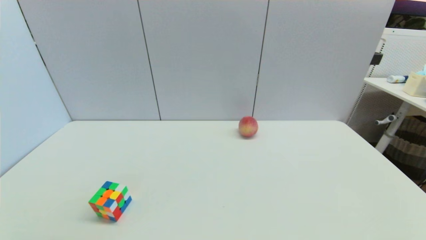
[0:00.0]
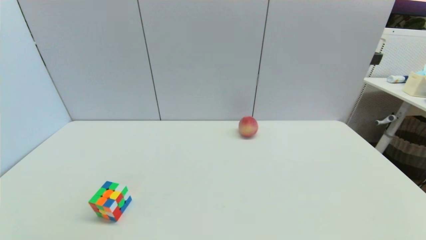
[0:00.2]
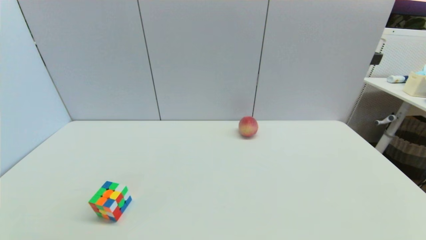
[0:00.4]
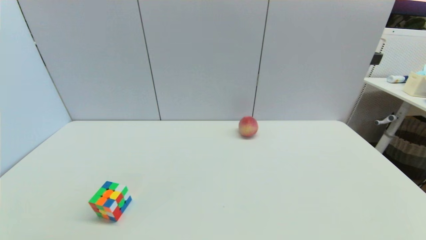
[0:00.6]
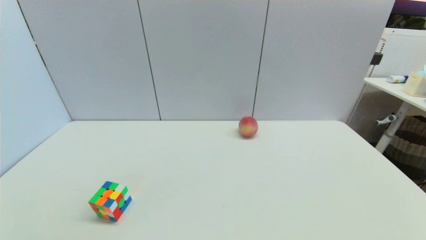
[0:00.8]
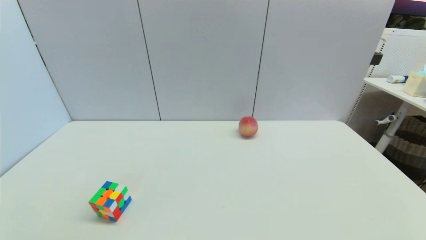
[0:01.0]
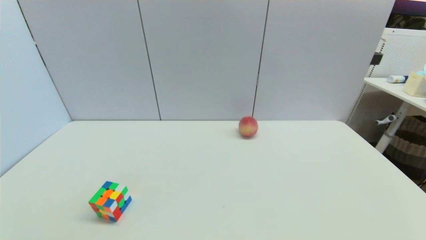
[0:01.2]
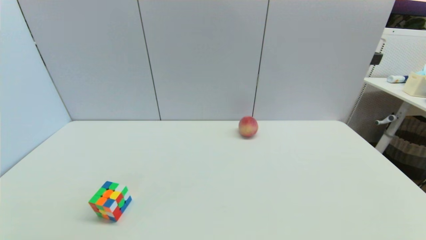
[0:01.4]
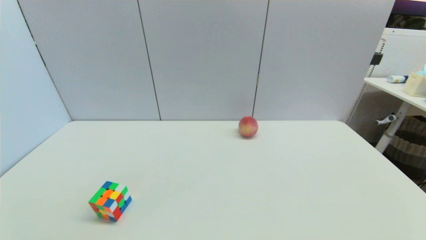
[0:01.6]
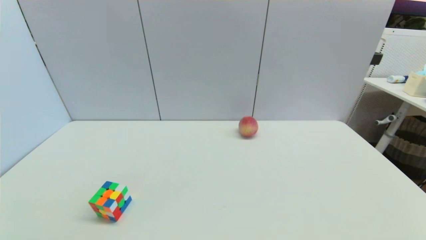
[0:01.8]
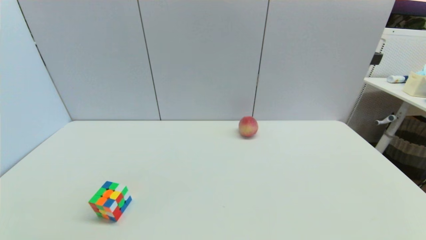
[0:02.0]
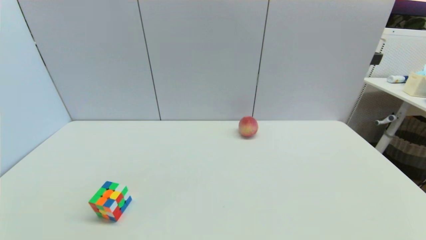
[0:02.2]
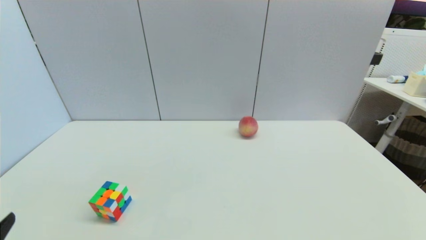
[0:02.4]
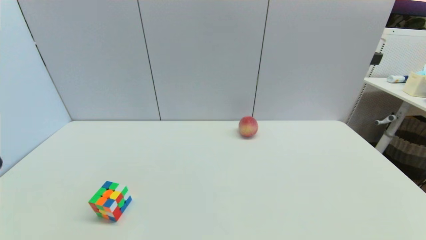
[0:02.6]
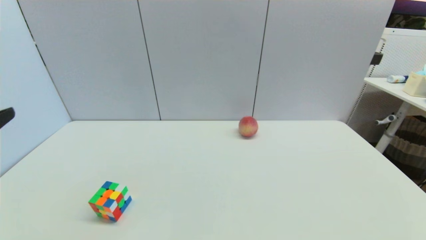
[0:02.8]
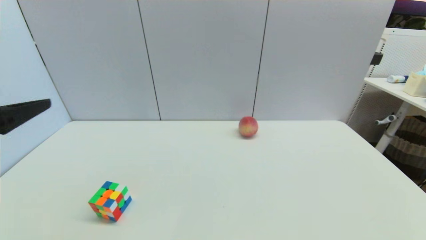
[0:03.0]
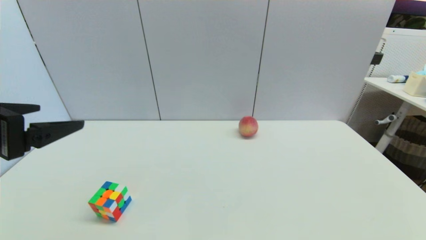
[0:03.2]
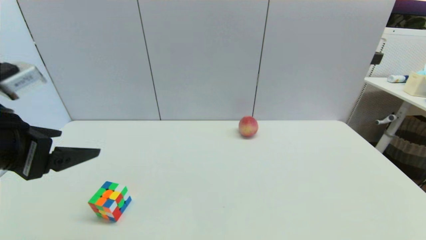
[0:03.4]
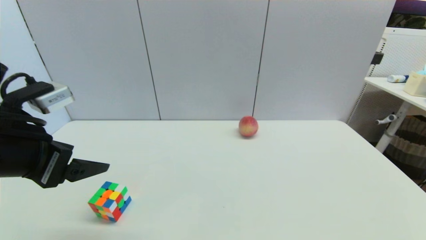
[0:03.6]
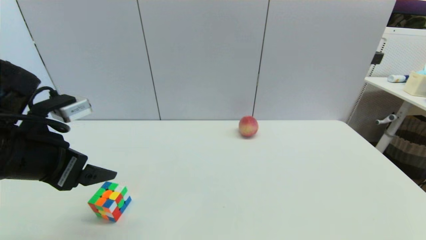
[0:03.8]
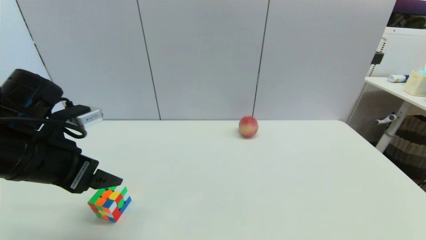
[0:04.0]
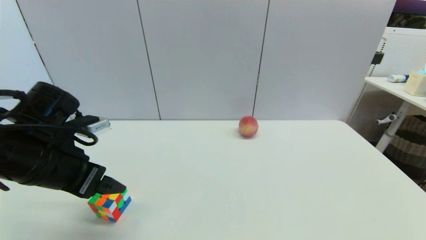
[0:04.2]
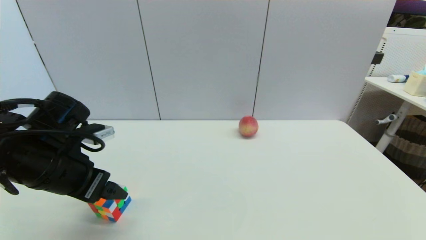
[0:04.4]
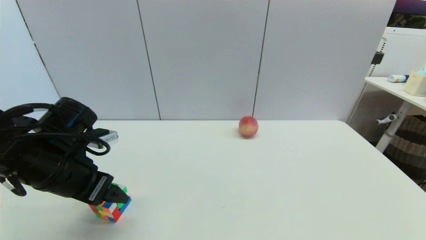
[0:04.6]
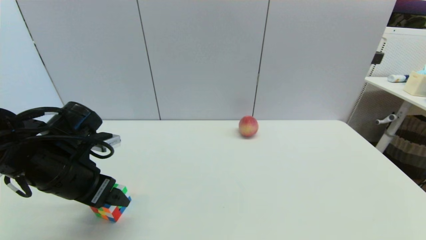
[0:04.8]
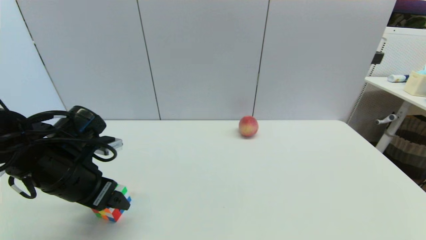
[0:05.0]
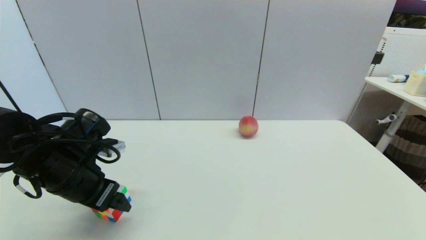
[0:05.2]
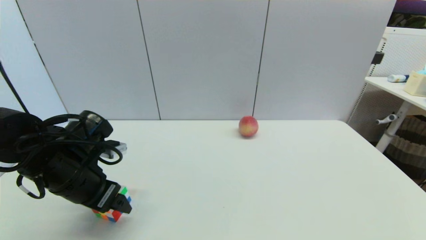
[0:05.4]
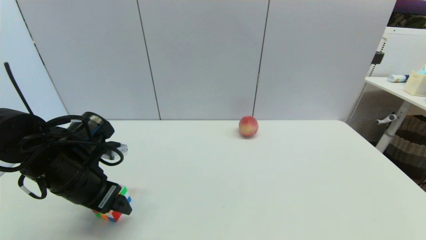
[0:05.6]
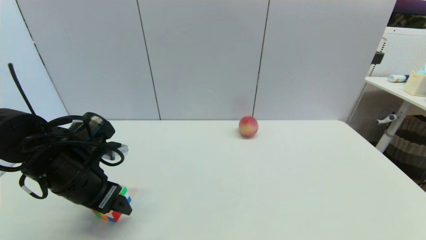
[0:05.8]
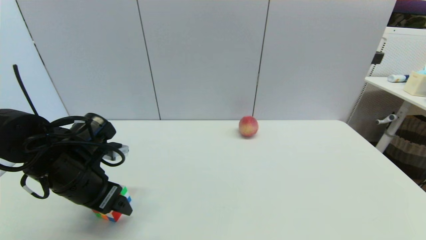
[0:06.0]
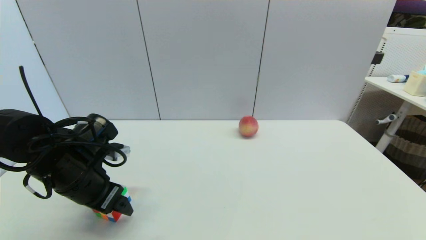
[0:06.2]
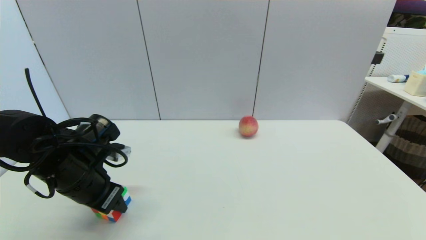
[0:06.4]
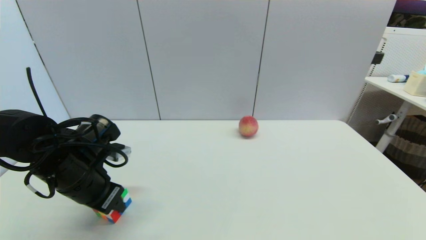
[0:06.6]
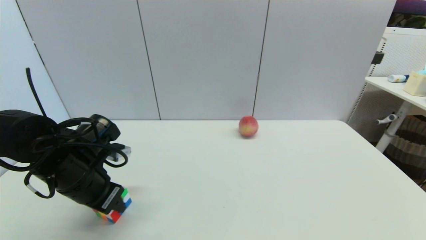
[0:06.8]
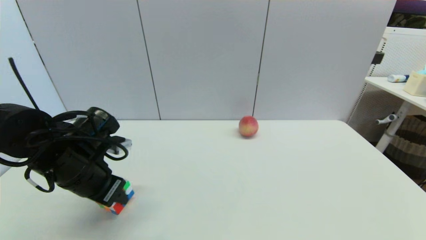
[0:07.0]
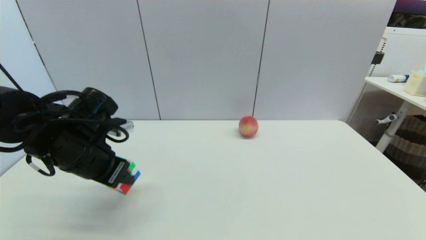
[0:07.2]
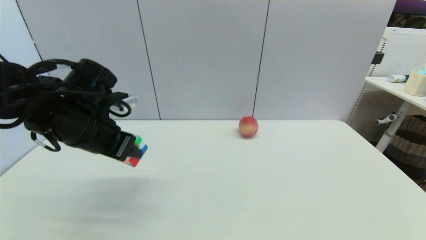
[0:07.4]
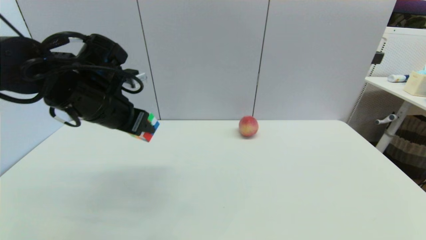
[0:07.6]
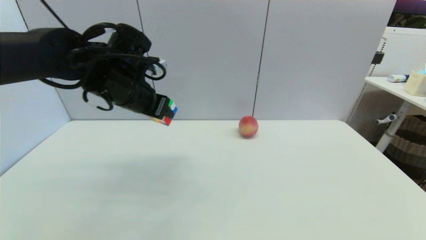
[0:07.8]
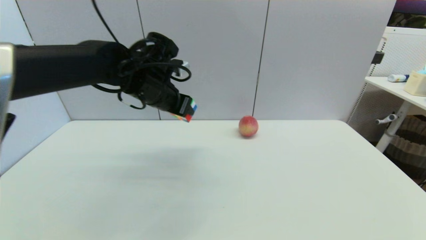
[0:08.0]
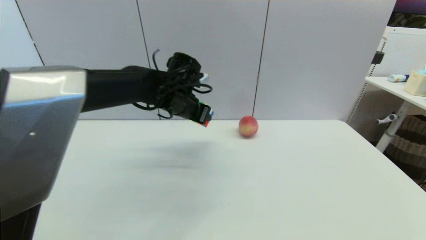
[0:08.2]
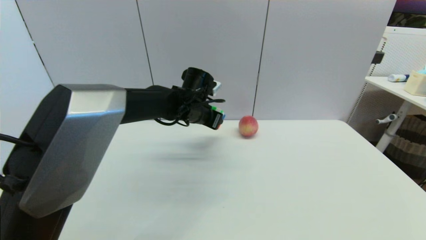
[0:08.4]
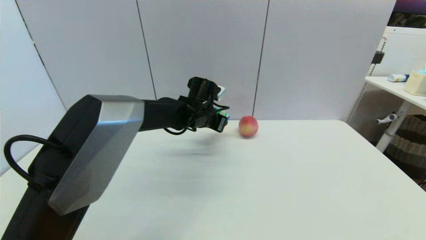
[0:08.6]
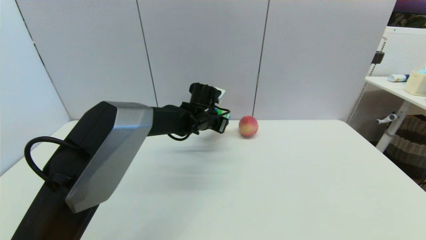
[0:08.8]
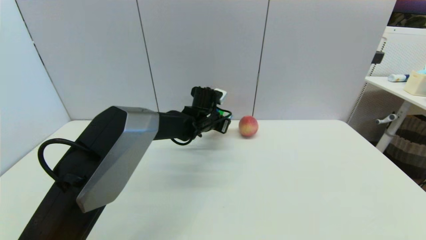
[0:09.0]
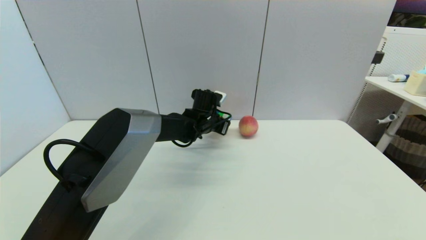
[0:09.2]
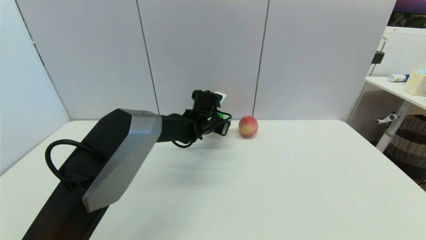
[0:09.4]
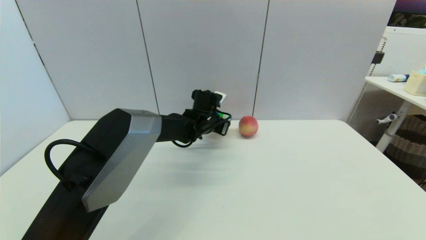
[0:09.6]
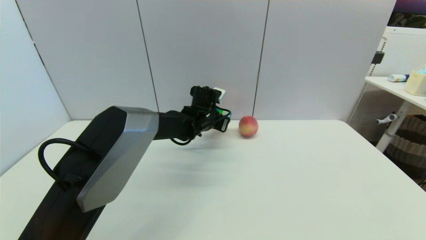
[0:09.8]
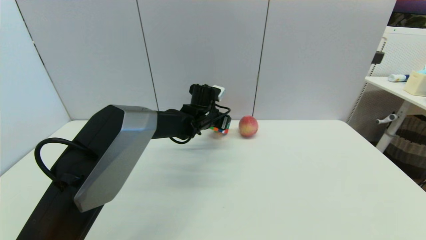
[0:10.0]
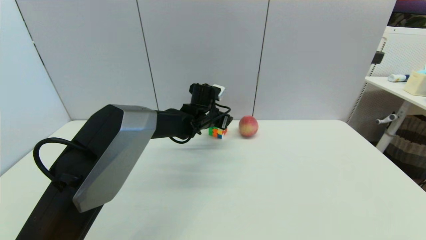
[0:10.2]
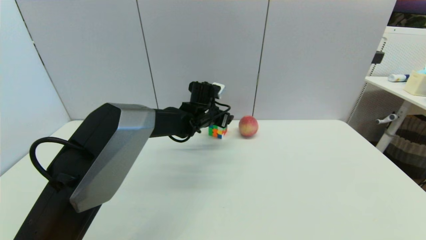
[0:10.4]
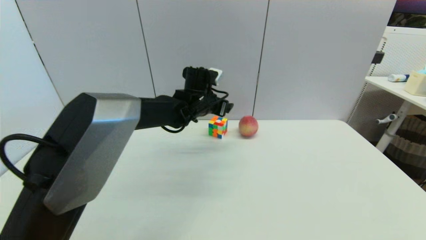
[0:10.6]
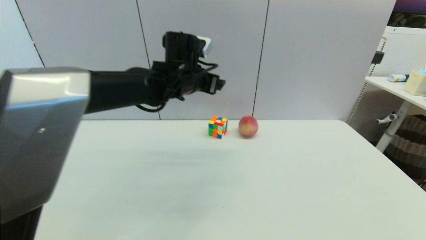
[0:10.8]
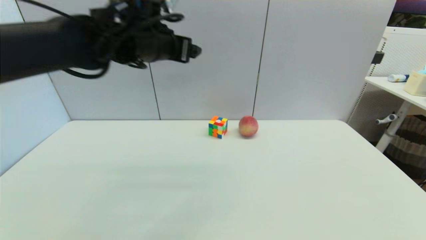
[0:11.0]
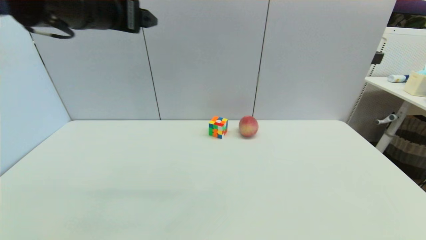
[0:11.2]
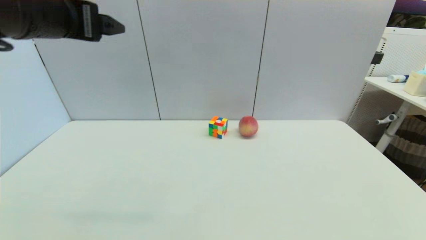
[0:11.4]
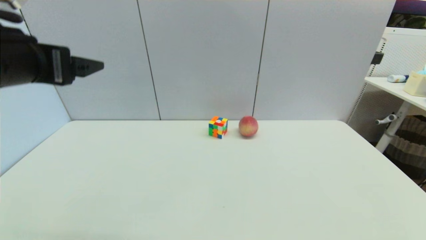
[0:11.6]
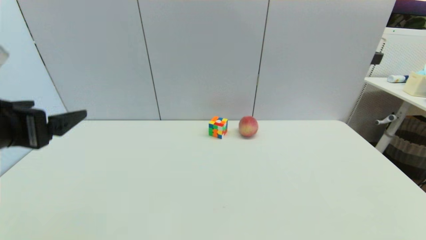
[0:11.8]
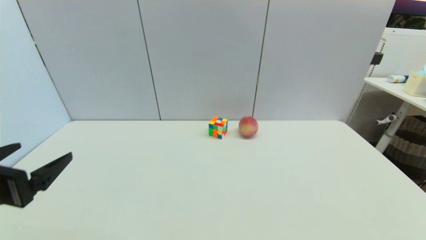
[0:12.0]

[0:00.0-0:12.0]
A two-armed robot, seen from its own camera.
Step, 0:02.4 to 0:06.6: Grasp the magic cube with left gripper.
Step, 0:06.8 to 0:10.6: Place the magic cube on the table with left gripper.
0:01.6 to 0:03.0: The left gripper heads upward and forward, covering approximately 25 cm.
0:03.0 to 0:04.4: The left gripper travels downward and forward by approximately 15 cm.
0:04.4 to 0:06.0: The grippers move only a little.
0:06.0 to 0:07.6: The left gripper goes approximately 10 cm upward and forward, and closes its fingers.
0:07.6 to 0:09.0: The left gripper goes about 25 cm to the right, forward and downward.
0:09.0 to 0:10.4: The left gripper opens up.
0:10.4 to 0:12.0: The left gripper goes roughly 40 cm backward and to the left, and opens.

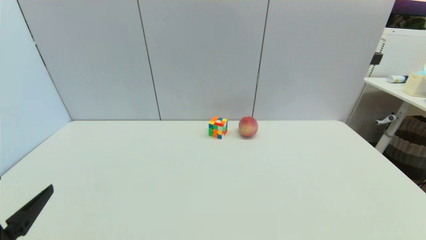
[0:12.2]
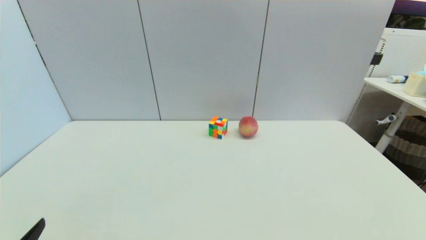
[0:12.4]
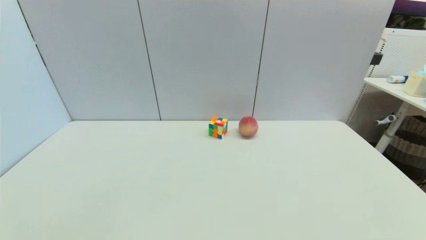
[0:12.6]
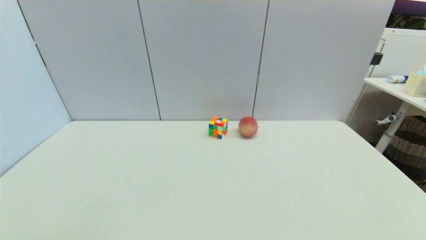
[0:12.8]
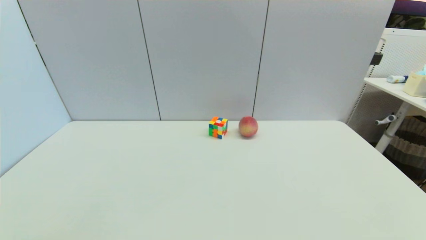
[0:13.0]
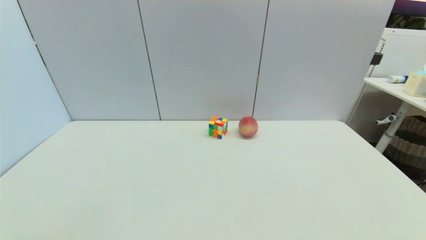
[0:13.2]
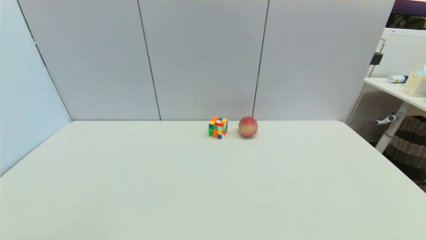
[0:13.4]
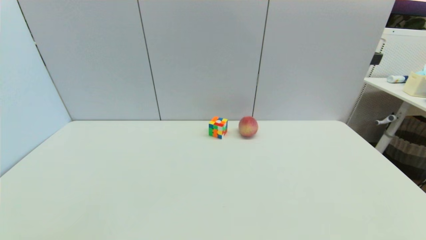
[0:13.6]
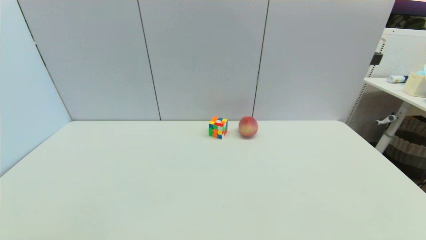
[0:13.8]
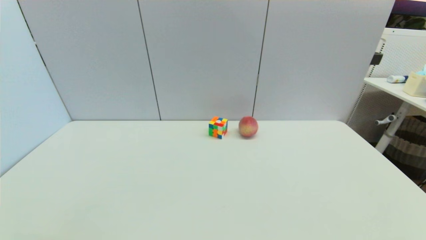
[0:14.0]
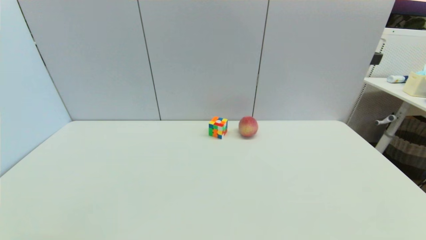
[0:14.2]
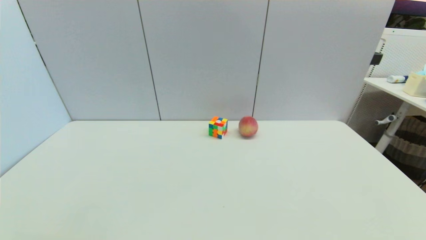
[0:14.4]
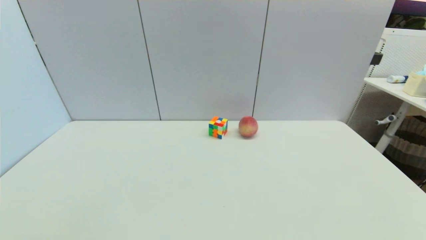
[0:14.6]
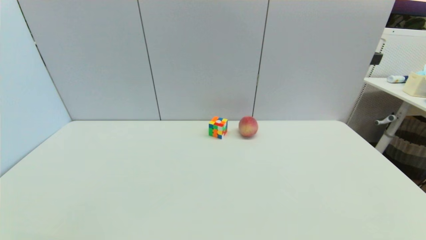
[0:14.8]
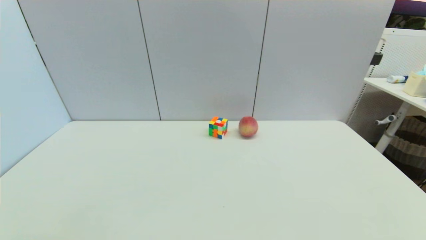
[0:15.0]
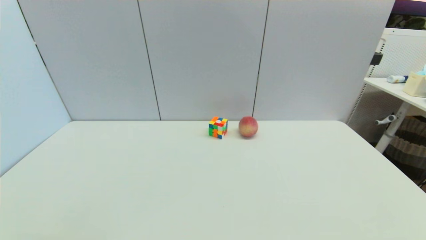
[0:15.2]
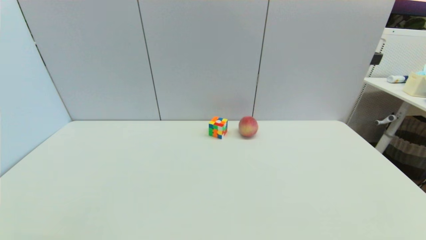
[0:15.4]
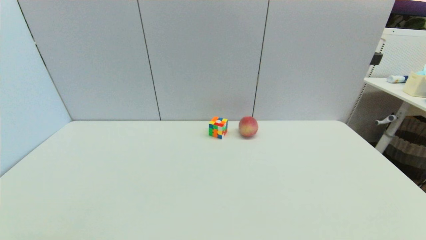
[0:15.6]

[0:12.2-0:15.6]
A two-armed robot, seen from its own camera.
0:12.2 to 0:13.8: The left gripper is displaced downward and backward by about 10 cm.
